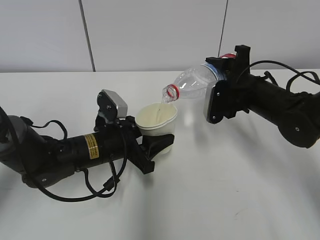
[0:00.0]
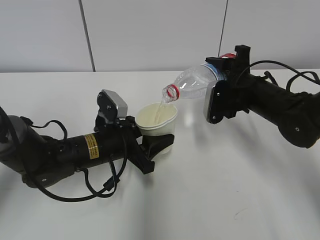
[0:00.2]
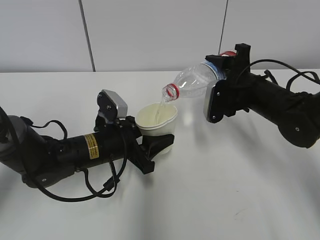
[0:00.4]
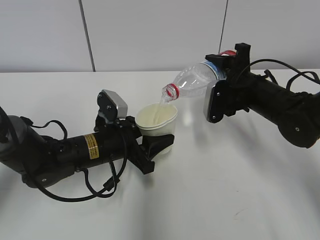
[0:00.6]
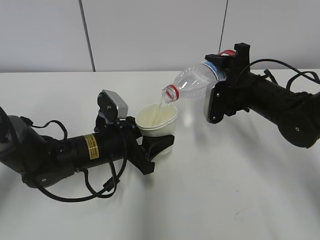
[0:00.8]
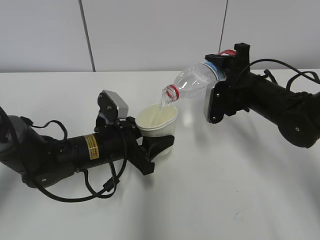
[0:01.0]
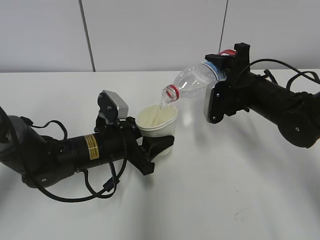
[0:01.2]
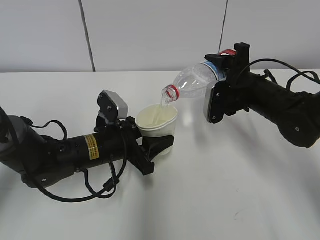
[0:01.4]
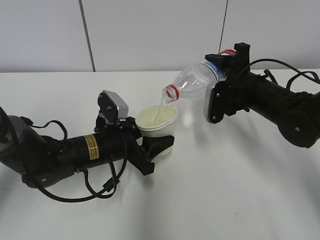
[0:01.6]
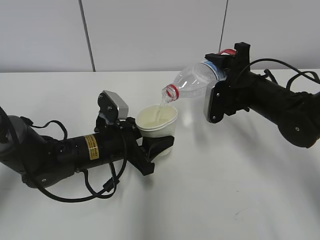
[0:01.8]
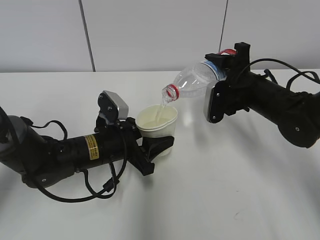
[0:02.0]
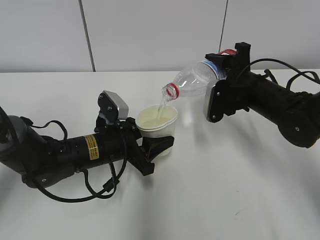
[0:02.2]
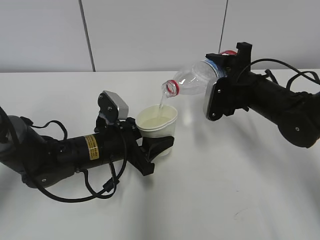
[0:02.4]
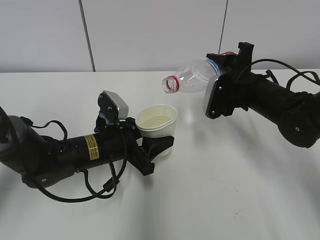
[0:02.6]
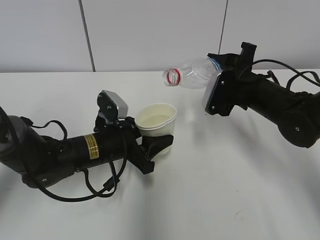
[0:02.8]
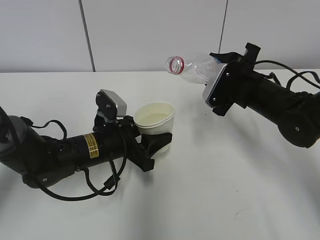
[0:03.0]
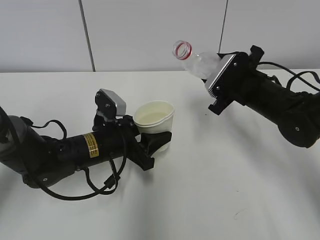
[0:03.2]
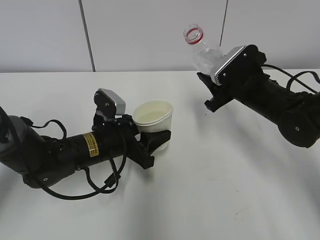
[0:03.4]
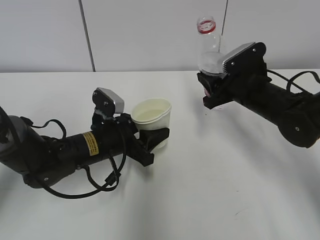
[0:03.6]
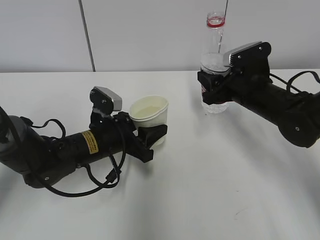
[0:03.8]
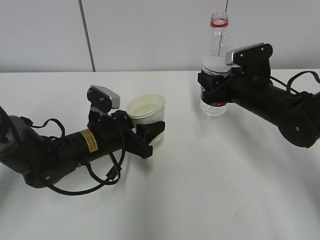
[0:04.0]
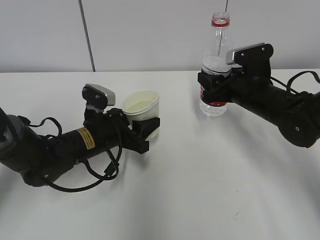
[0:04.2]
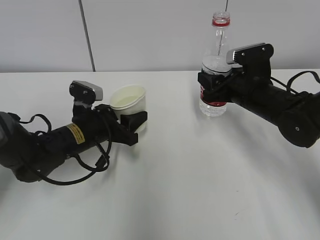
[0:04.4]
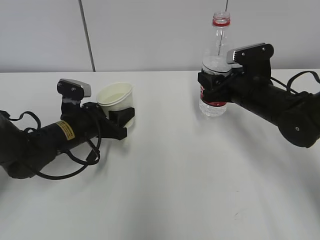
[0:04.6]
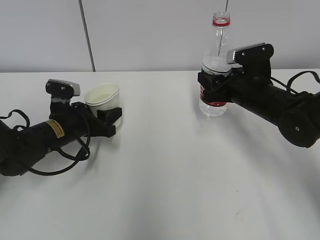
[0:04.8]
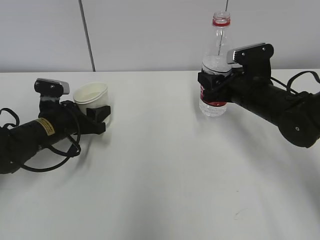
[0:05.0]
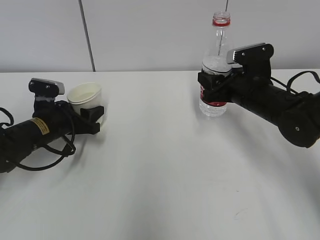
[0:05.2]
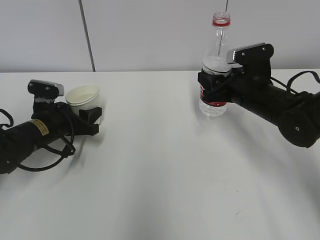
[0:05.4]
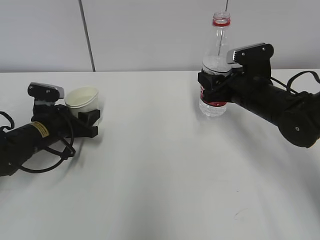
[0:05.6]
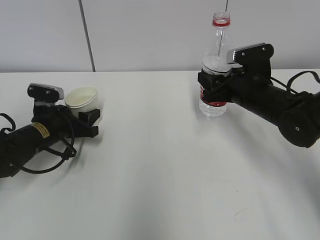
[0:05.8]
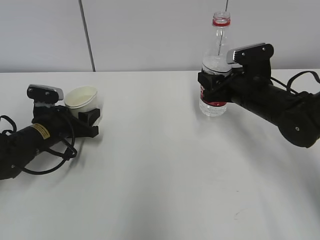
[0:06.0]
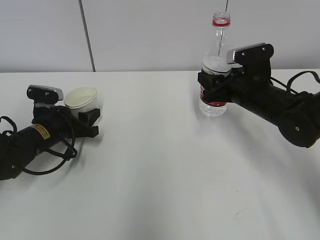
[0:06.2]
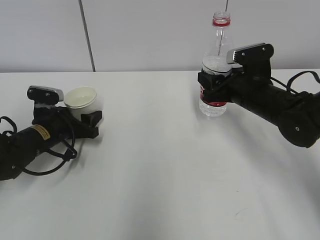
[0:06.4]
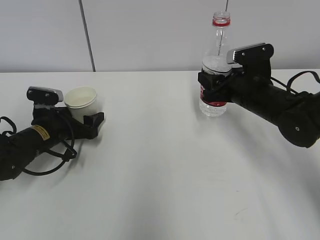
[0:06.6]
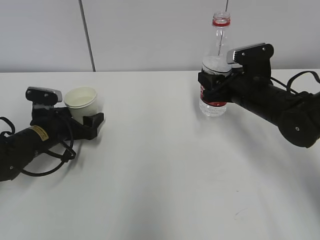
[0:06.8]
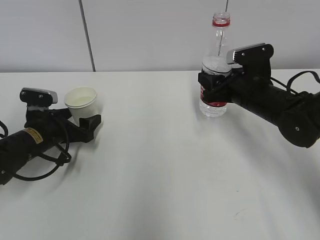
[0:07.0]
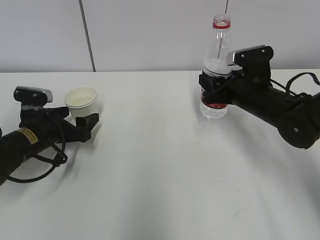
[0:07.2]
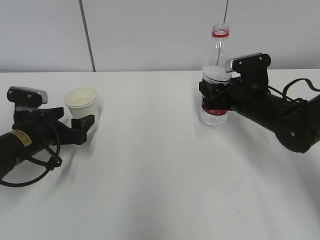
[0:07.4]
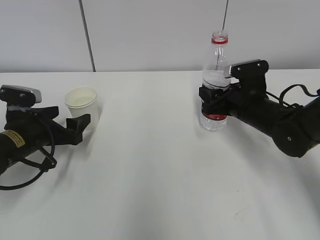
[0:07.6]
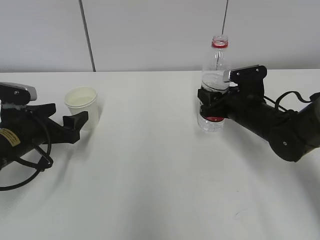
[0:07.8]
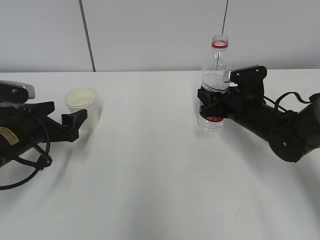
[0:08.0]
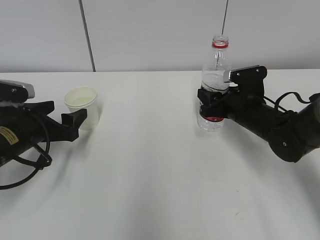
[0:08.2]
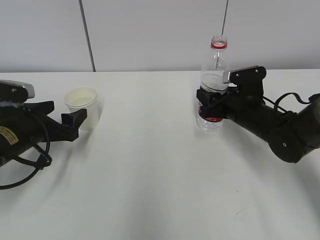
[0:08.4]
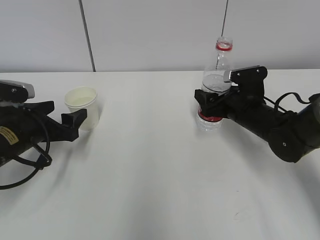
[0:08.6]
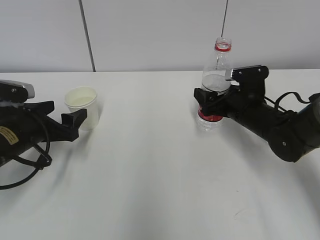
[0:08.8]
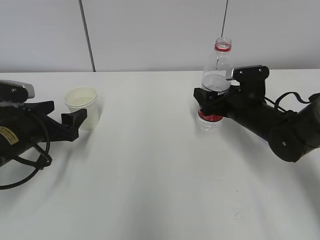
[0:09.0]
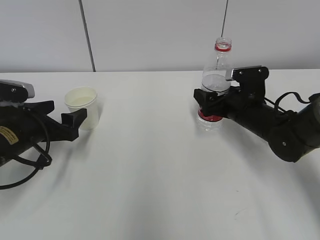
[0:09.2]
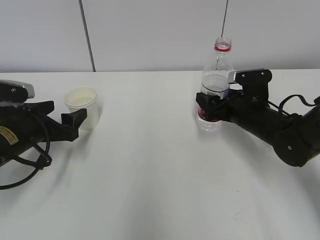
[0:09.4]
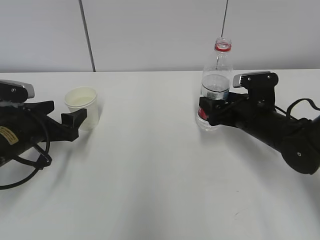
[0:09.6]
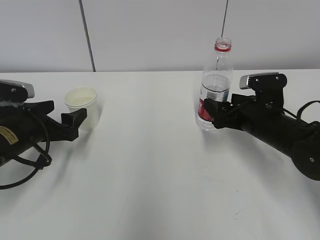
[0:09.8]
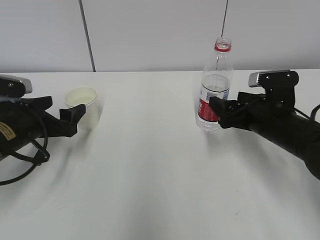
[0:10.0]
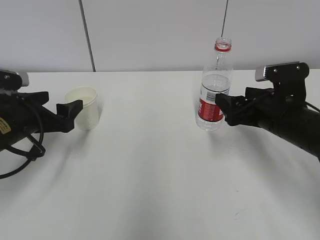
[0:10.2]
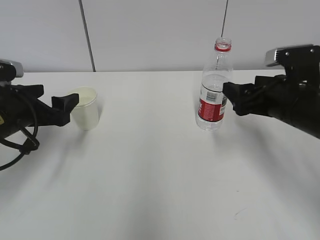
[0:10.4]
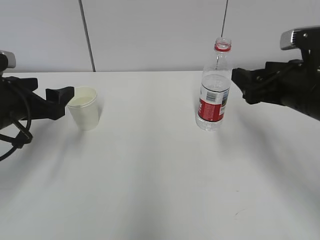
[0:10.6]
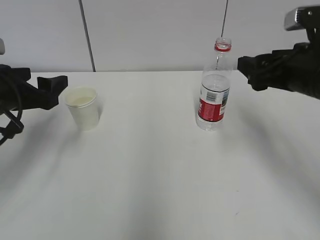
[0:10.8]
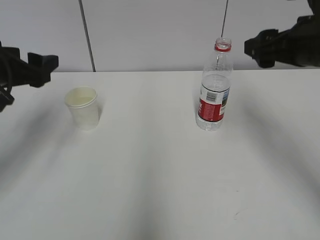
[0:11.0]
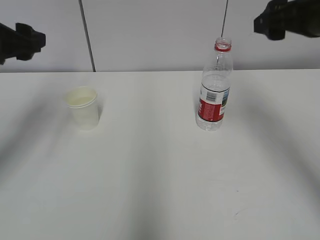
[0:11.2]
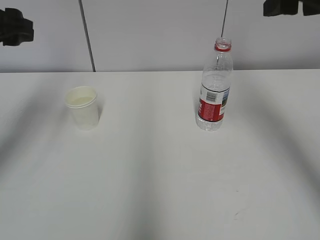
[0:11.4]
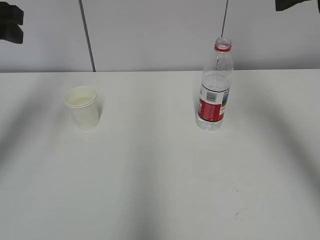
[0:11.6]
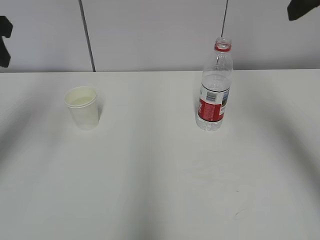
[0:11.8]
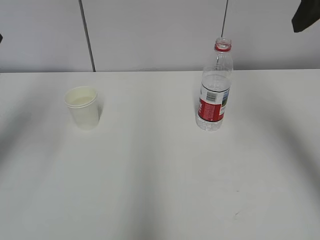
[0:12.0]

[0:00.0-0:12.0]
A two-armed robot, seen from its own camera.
Step, 0:00.0 to 0:00.6: Collect water with the right hand.
Step, 0:00.8 to 0:02.8: Place the paper cup with the left hand.
0:00.0 to 0:01.6: Both grippers stay put.
0:04.4 to 0:06.0: The left gripper moves to the left, roughly 10 cm.
0:06.0 to 0:07.6: The left gripper moves backward, approximately 5 cm, and opens.
0:07.6 to 0:09.0: The right gripper opens its fingers.
0:09.0 to 0:10.4: The right gripper goes some 10 cm backward and upward.
0:10.4 to 0:12.0: Both grippers travel together upward, roughly 20 cm. The left gripper closes up.

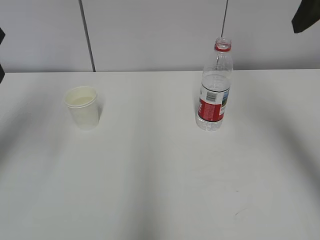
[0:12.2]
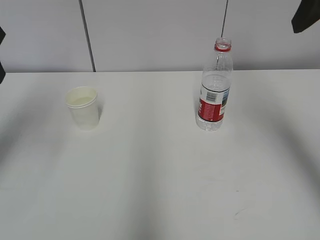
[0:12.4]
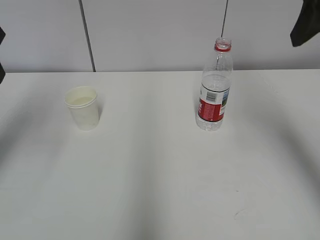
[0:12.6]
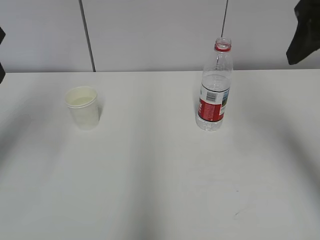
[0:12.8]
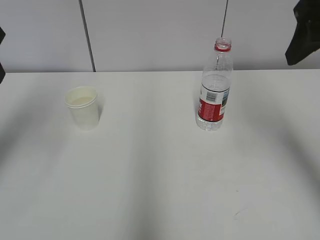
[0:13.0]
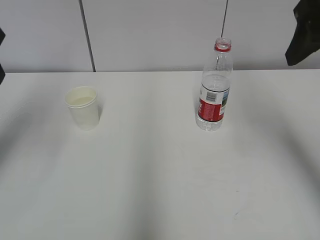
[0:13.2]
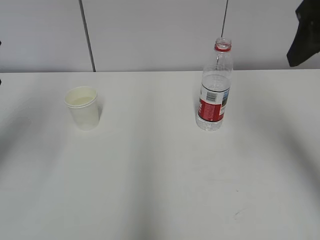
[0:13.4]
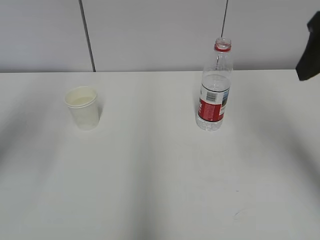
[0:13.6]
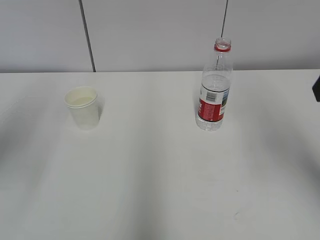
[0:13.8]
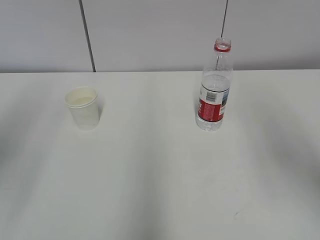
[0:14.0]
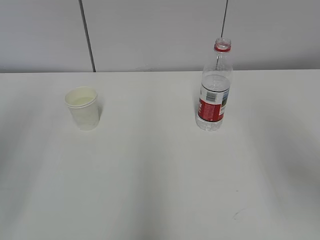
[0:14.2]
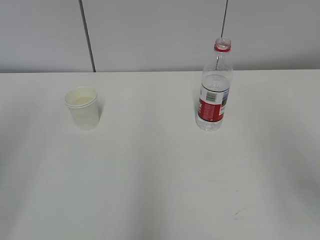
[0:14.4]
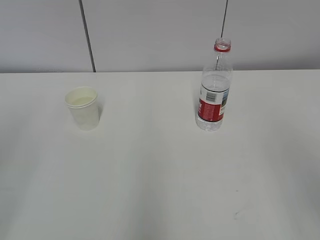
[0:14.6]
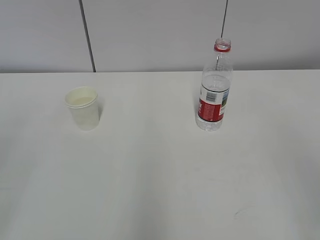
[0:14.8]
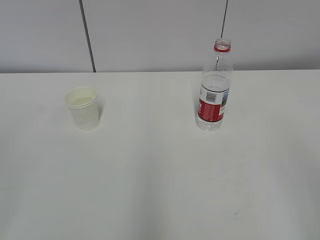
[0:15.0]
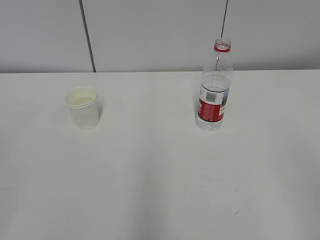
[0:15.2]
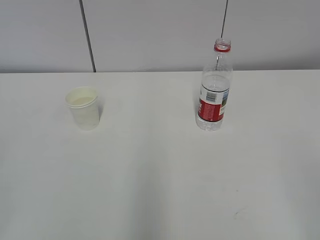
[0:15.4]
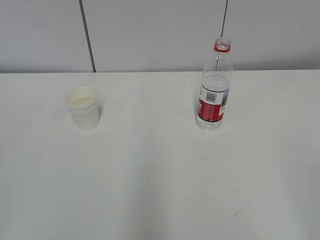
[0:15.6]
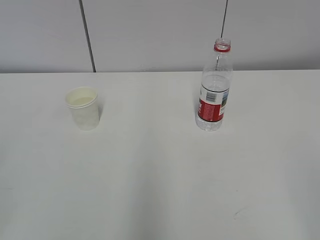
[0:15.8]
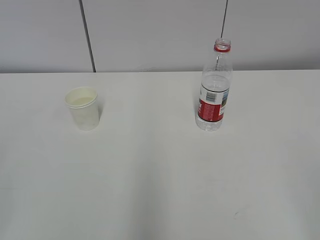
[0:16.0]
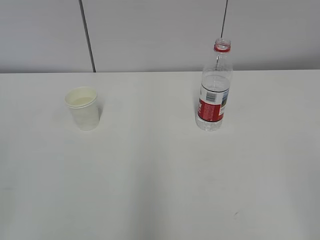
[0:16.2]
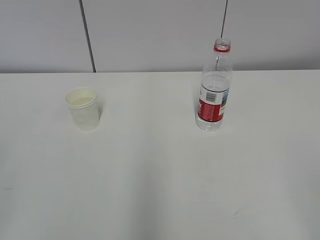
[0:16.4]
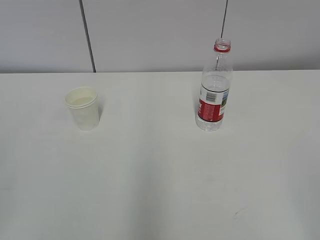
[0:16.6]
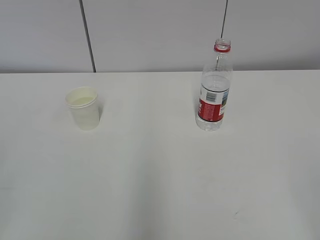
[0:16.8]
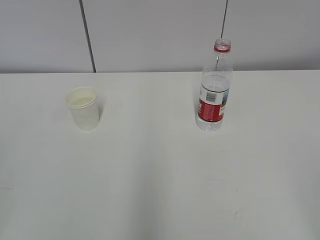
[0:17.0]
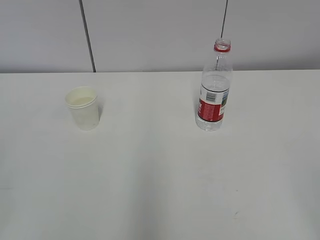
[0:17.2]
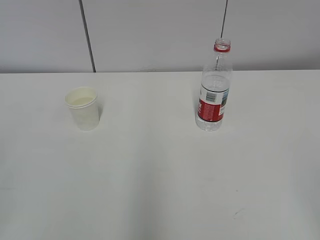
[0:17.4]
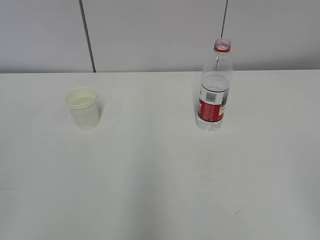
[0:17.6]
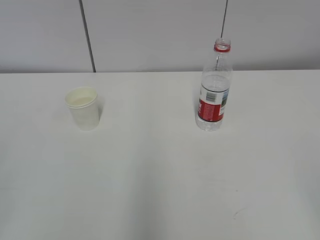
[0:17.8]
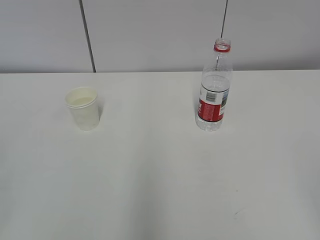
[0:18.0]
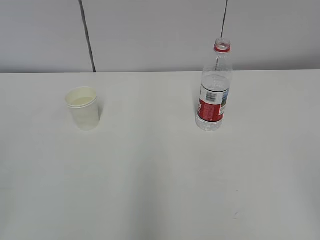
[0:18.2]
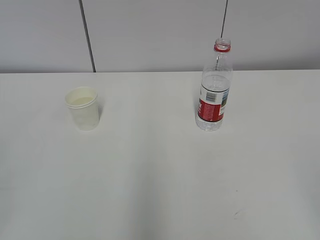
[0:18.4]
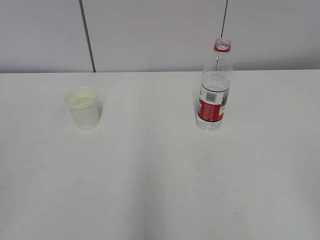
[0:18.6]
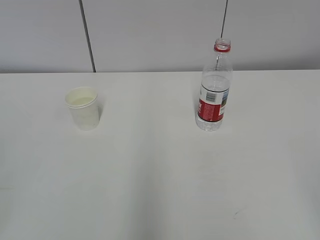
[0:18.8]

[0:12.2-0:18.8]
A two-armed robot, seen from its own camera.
0:12.2 to 0:13.8: The right gripper travels backward by about 5 cm.
0:13.8 to 0:15.4: The left gripper heads backward, covering about 25 cm; the right gripper goes roughly 20 cm backward and downward.
